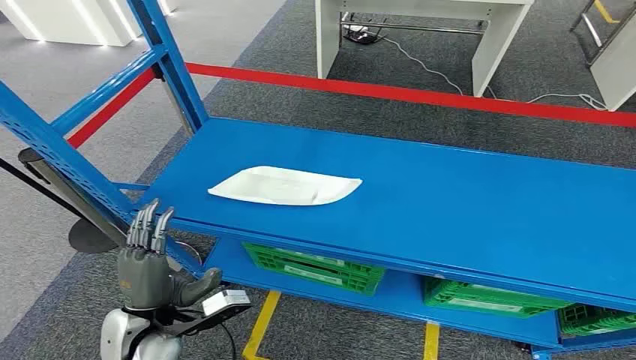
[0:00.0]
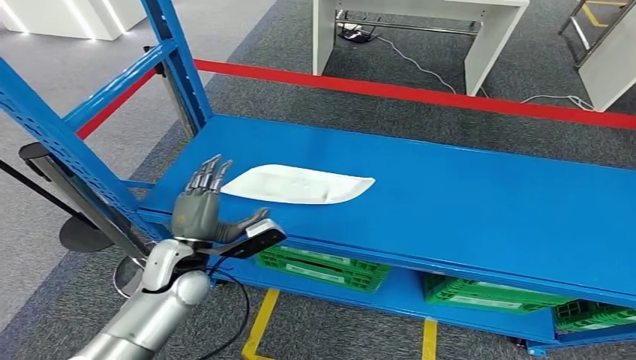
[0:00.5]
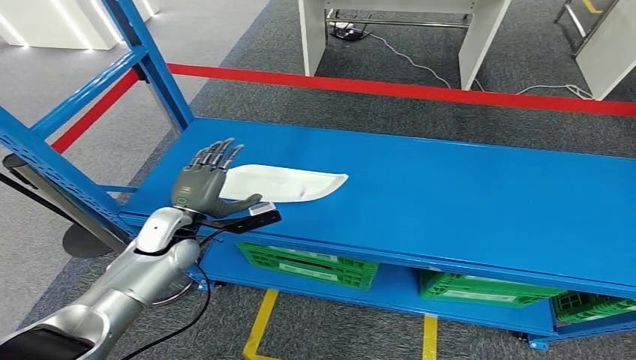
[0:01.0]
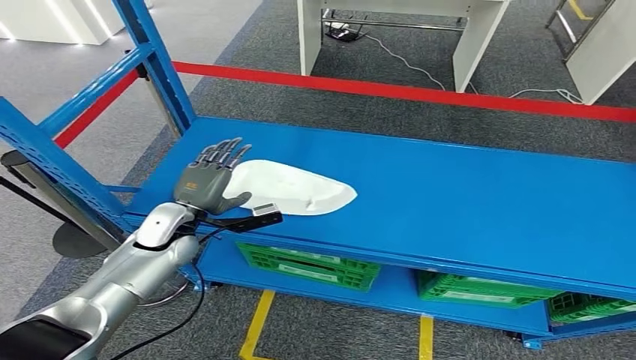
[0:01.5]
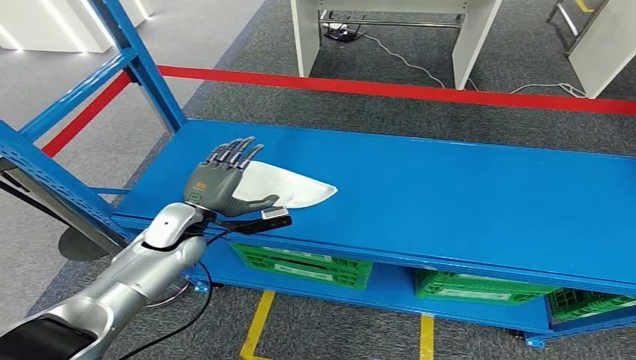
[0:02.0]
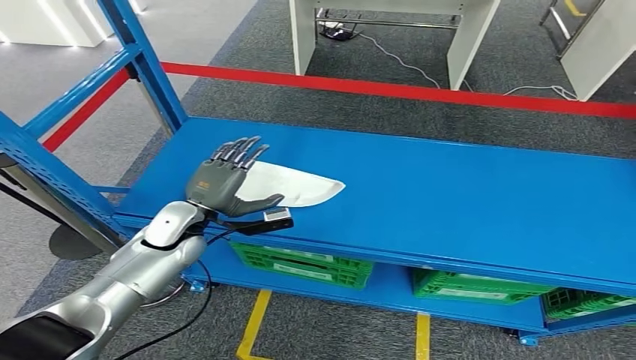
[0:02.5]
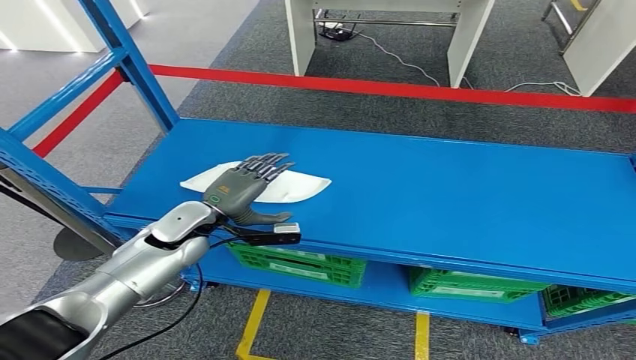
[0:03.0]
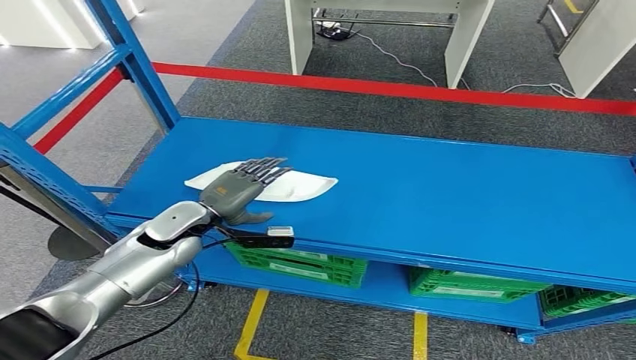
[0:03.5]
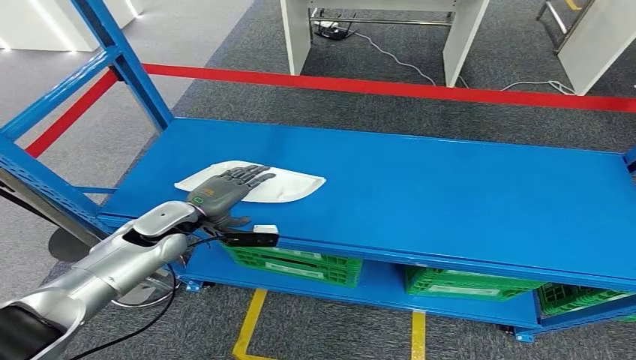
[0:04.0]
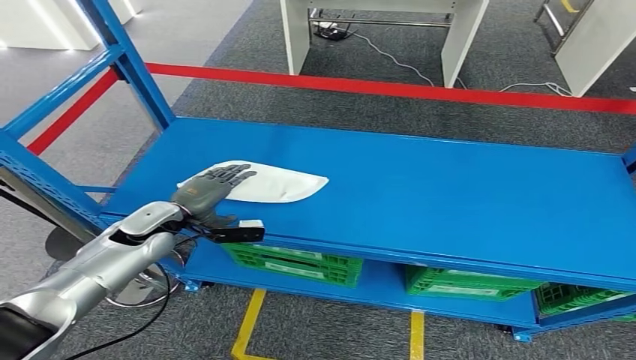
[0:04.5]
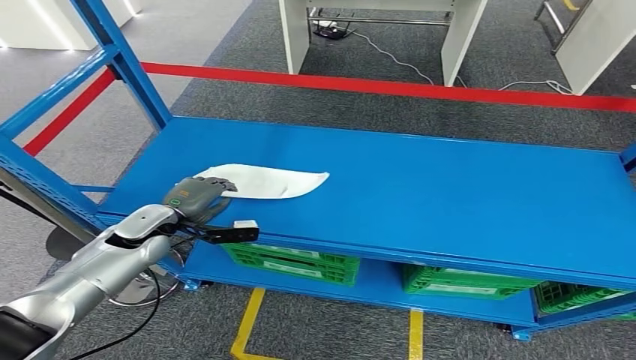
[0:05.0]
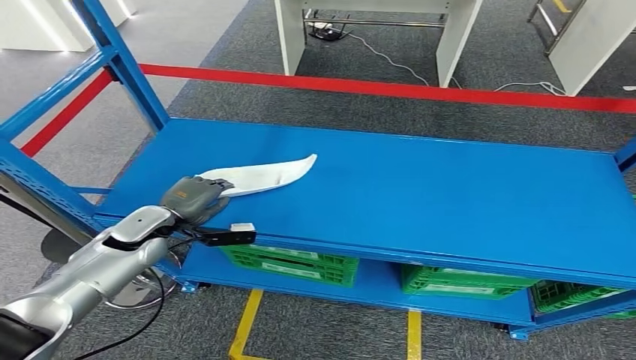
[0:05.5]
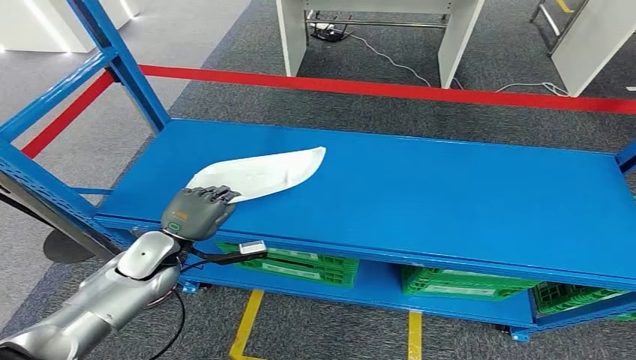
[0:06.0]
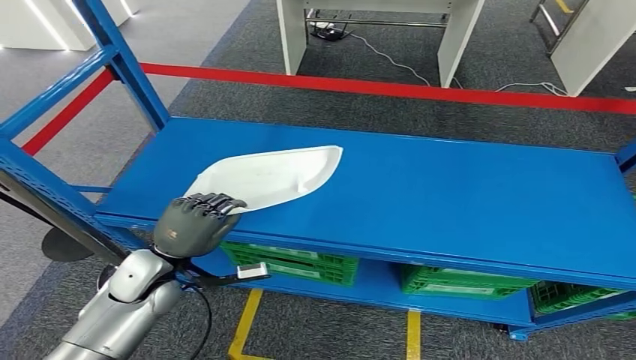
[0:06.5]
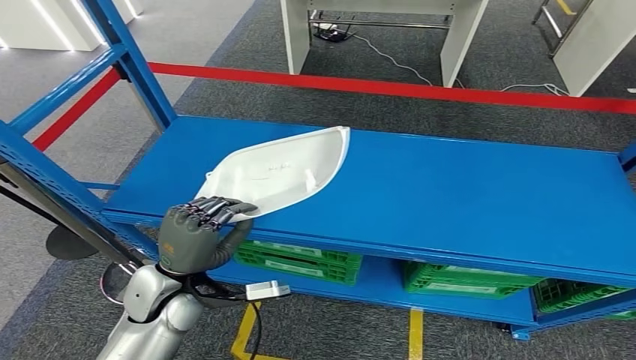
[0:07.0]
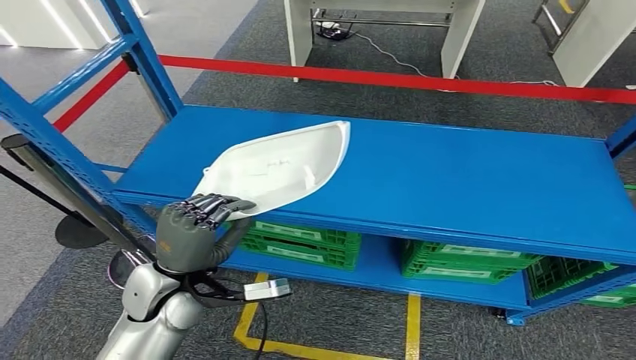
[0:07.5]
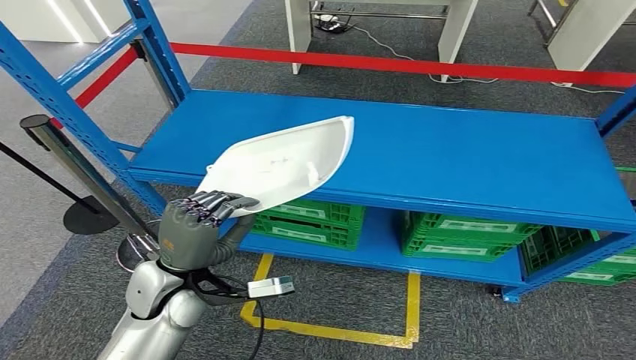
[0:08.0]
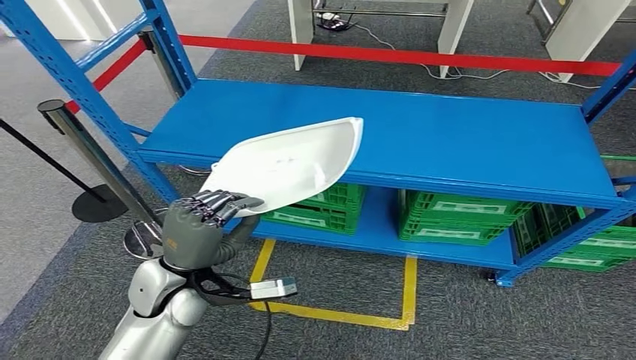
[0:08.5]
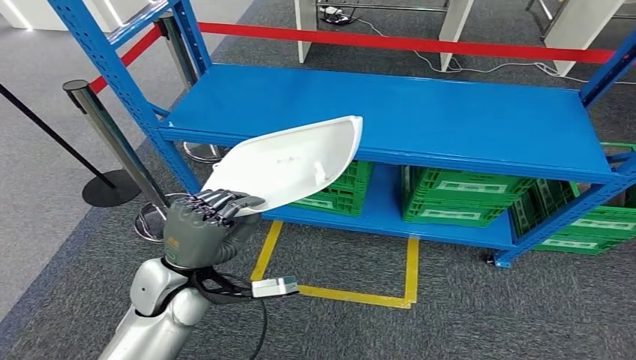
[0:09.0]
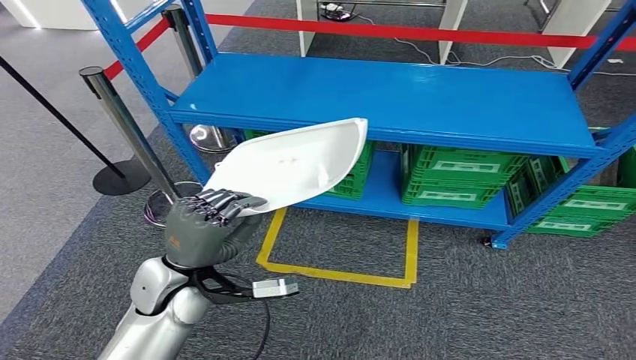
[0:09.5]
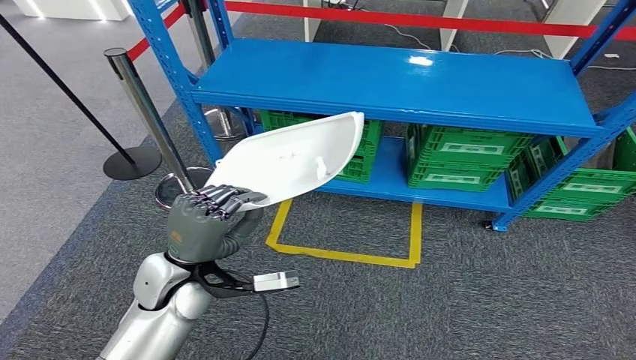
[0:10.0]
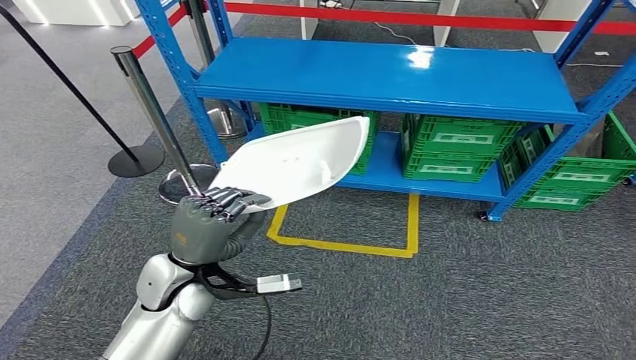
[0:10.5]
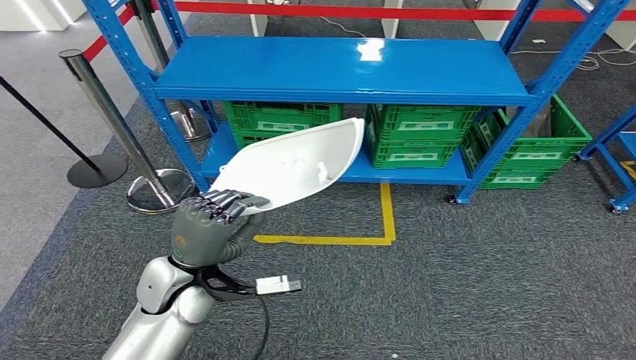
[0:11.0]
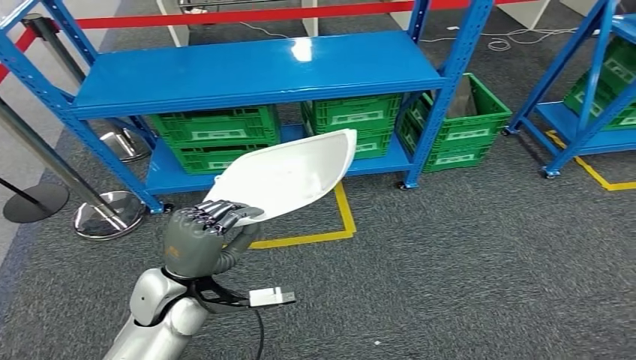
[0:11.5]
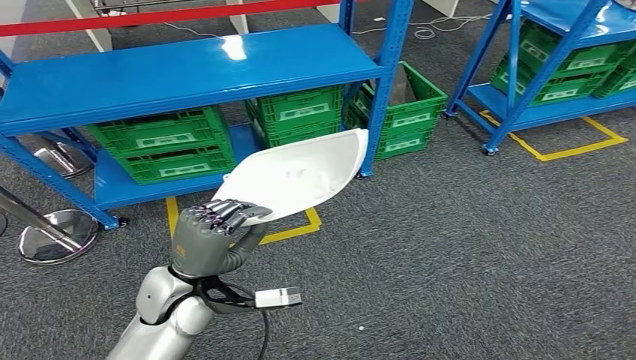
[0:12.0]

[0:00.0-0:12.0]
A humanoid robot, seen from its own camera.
Step, 0:00.0 to 0:07.0: Pick up the small component from the shelf.
0:04.0 to 0:06.0: The left hand moves backward, about 5 cm.

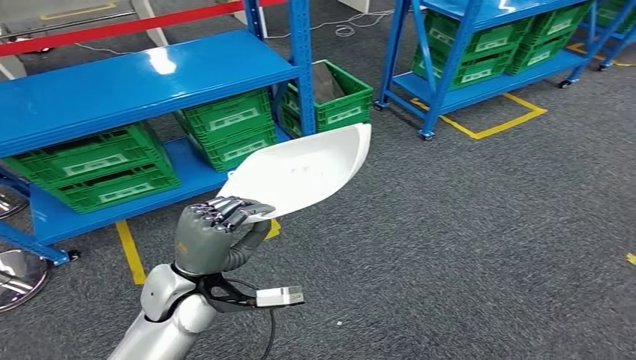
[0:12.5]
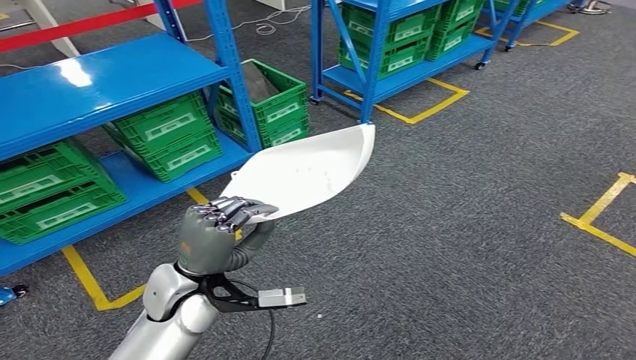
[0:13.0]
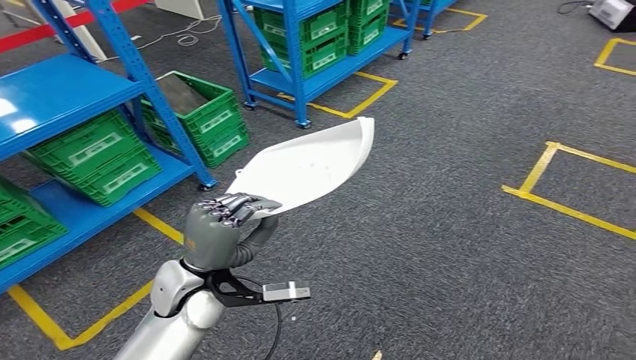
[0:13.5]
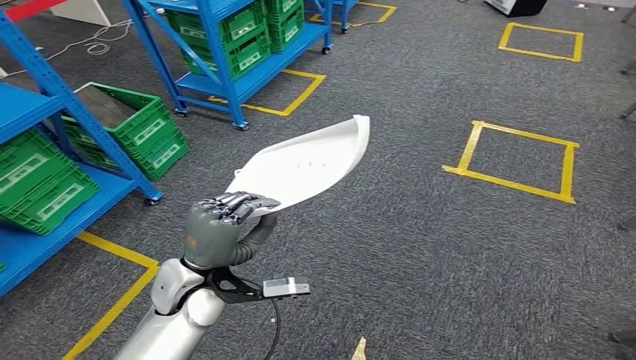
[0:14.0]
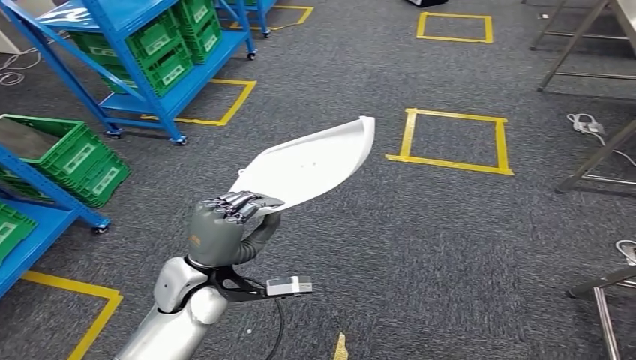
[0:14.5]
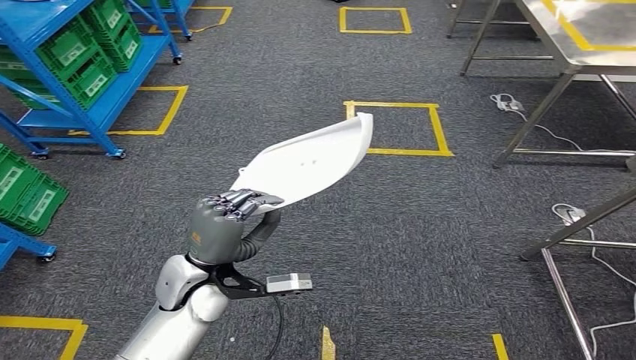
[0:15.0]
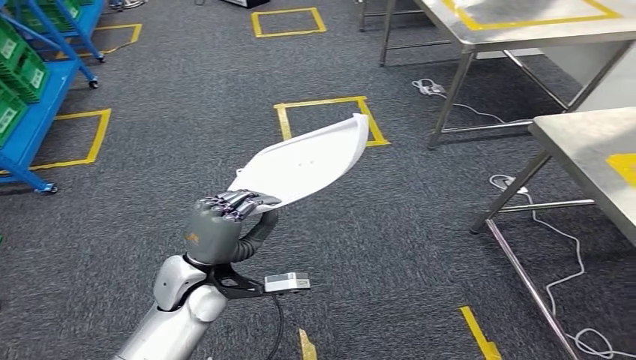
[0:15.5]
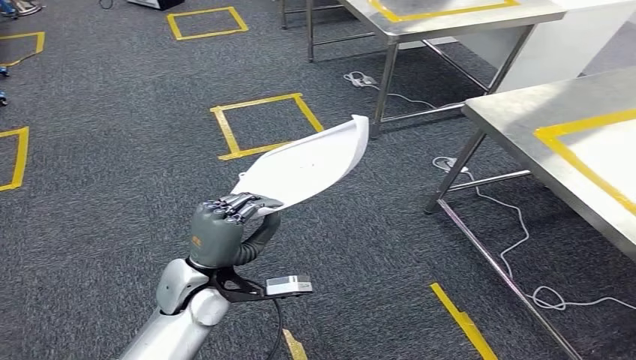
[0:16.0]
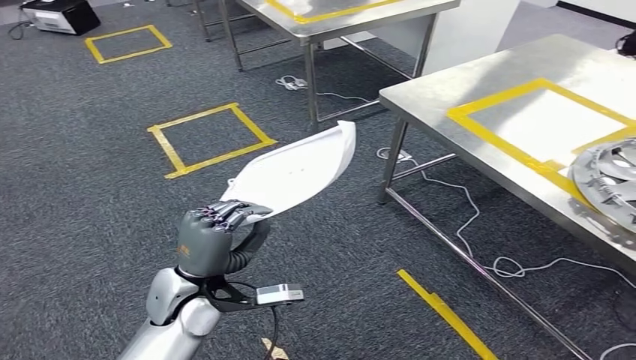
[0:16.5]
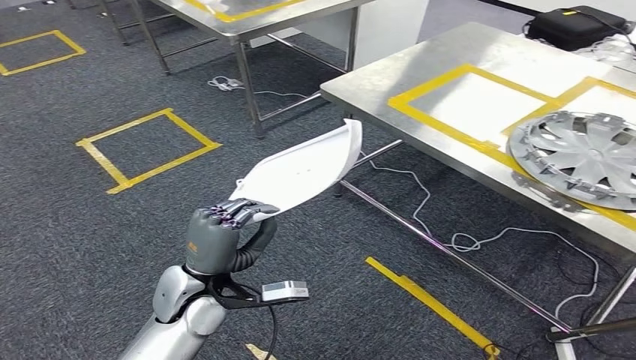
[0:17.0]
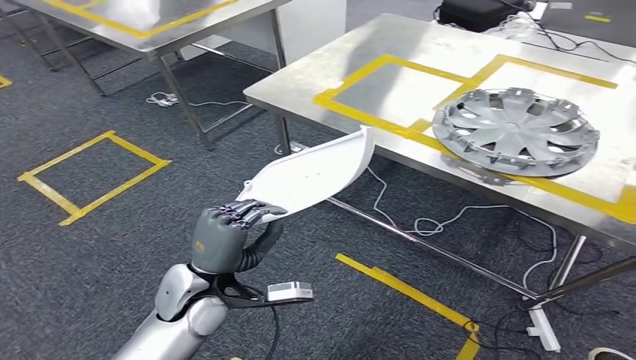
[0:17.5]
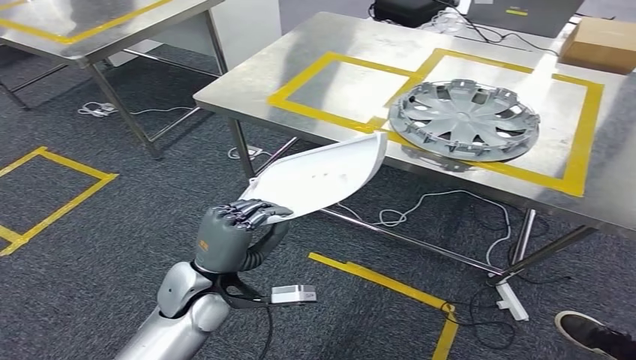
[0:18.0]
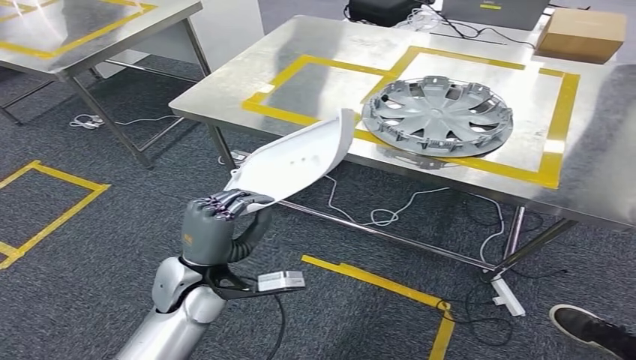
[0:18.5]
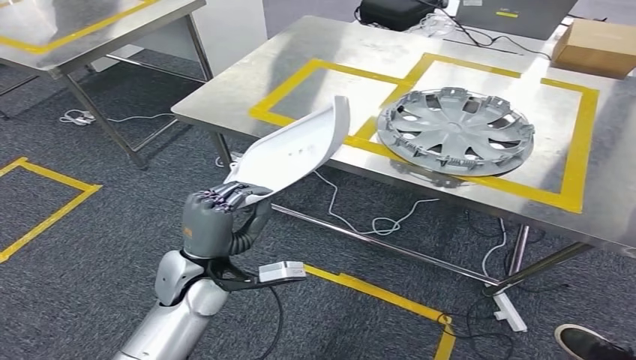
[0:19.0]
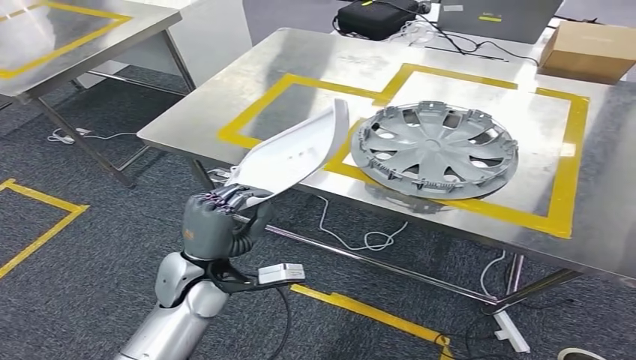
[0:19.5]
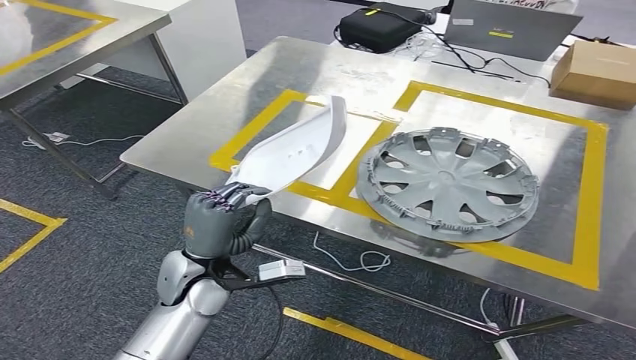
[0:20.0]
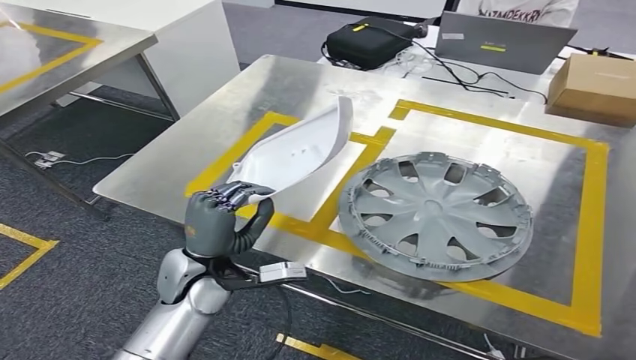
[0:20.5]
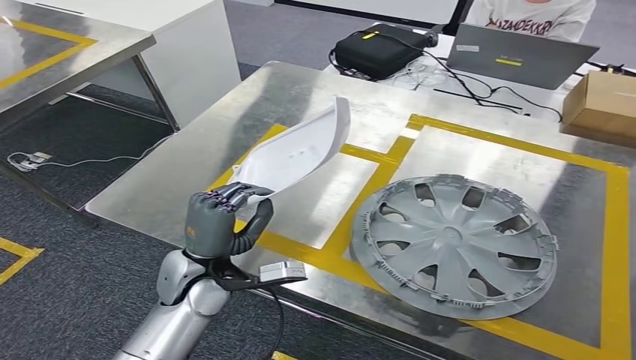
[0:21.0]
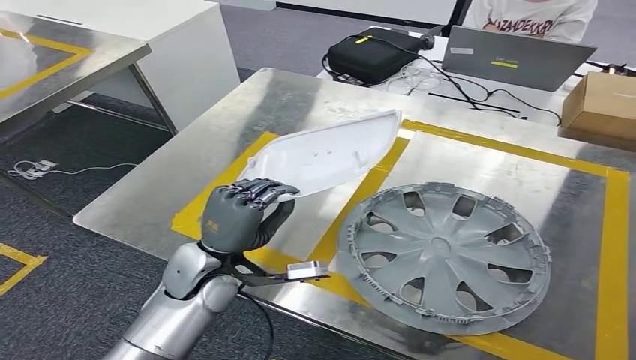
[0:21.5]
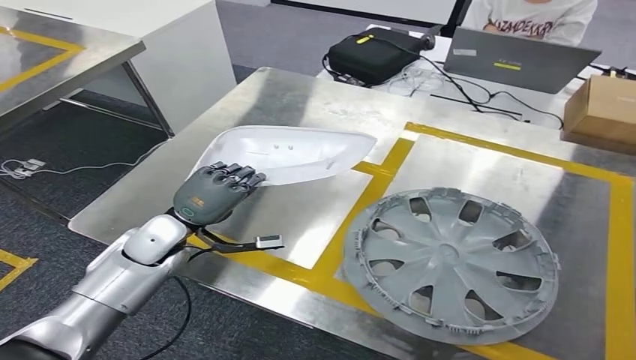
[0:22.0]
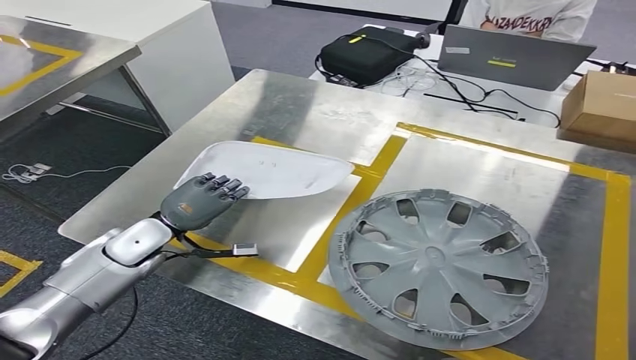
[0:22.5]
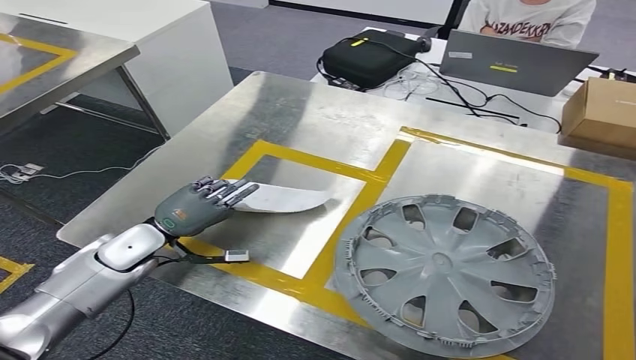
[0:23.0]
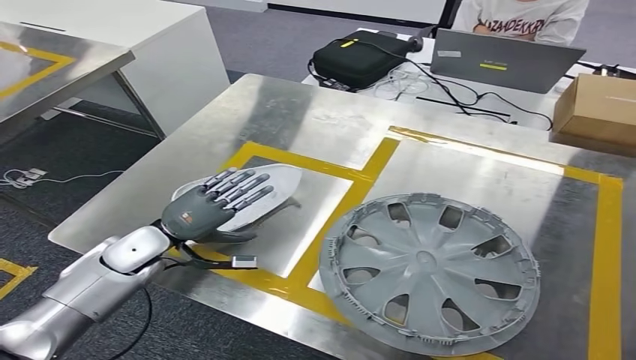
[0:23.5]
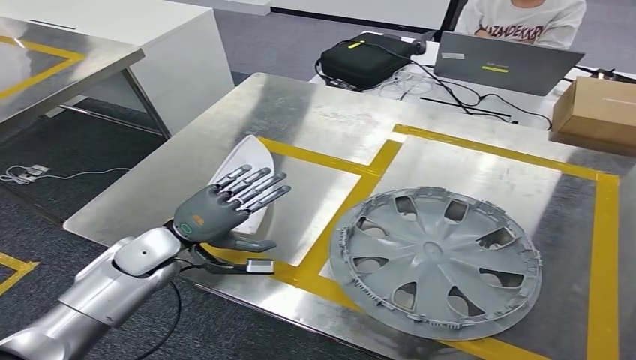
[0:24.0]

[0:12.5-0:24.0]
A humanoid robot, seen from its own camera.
Step, 0:12.5 to 0:20.0: Move the small component to the workbench.
